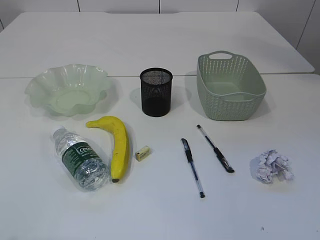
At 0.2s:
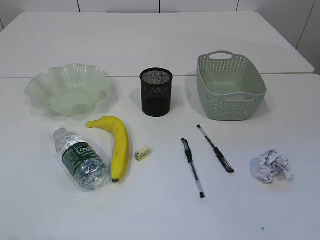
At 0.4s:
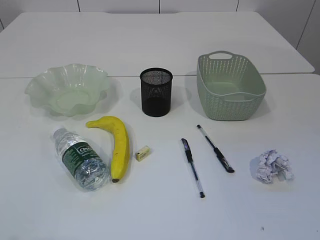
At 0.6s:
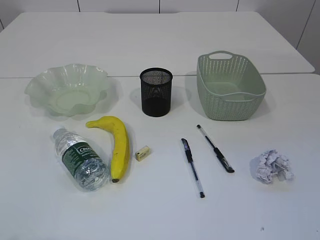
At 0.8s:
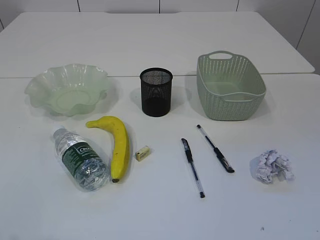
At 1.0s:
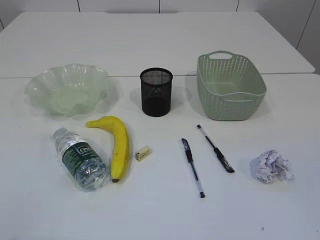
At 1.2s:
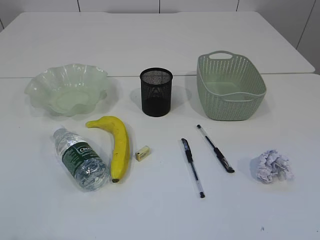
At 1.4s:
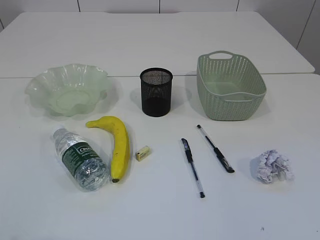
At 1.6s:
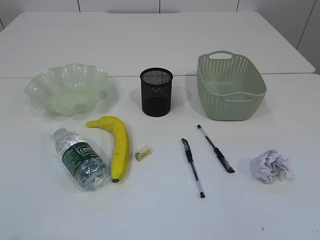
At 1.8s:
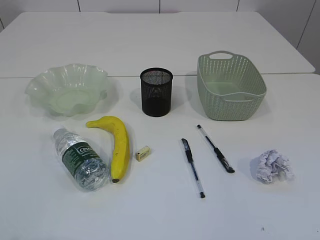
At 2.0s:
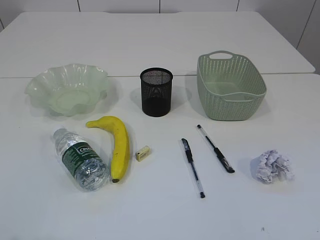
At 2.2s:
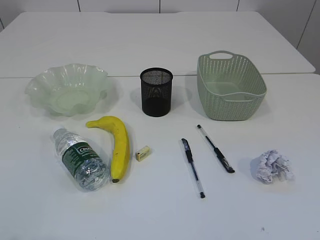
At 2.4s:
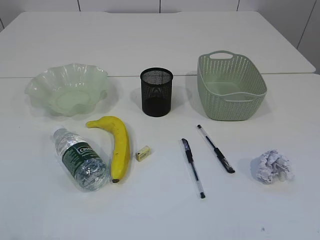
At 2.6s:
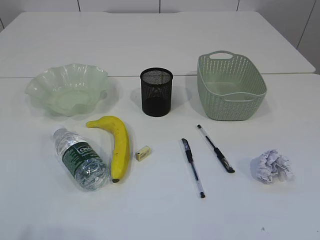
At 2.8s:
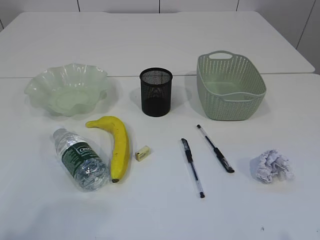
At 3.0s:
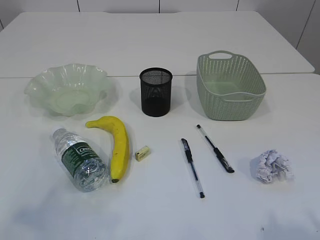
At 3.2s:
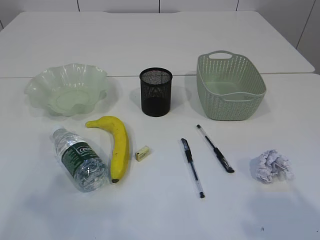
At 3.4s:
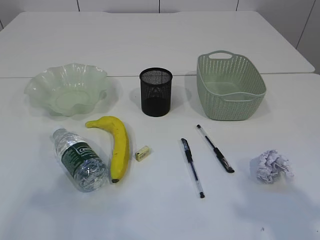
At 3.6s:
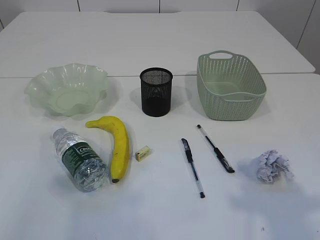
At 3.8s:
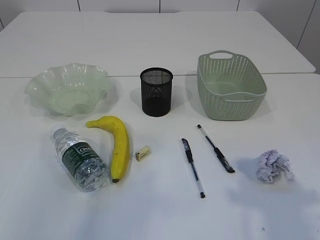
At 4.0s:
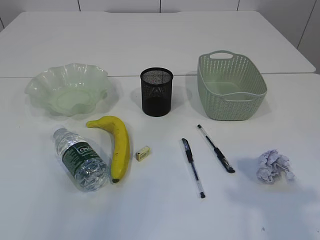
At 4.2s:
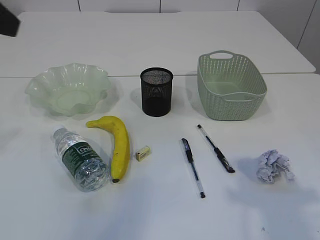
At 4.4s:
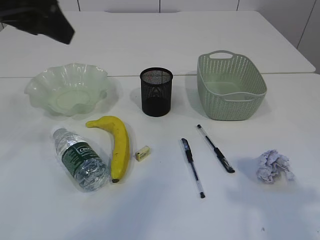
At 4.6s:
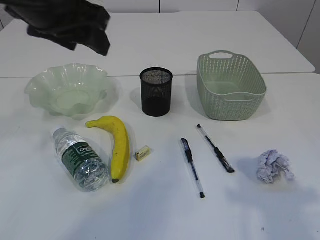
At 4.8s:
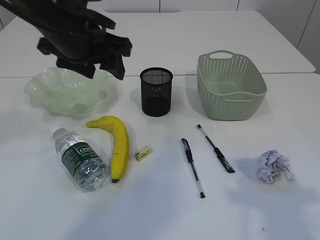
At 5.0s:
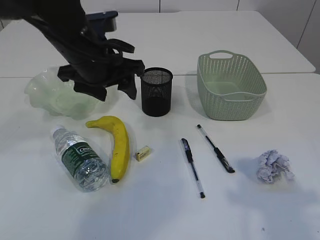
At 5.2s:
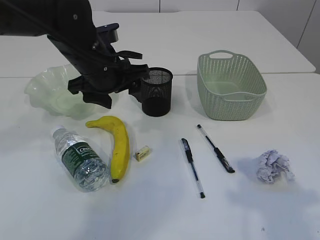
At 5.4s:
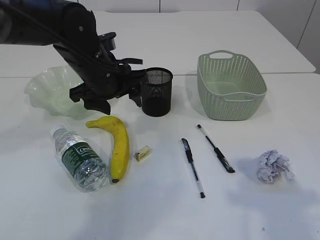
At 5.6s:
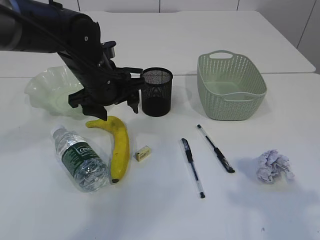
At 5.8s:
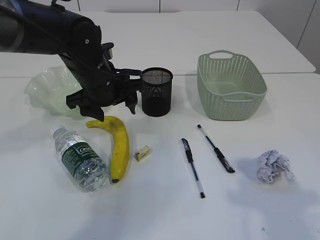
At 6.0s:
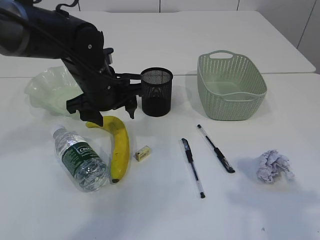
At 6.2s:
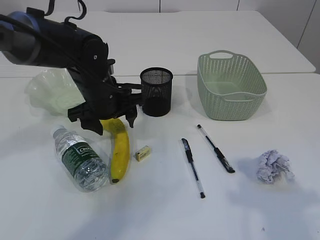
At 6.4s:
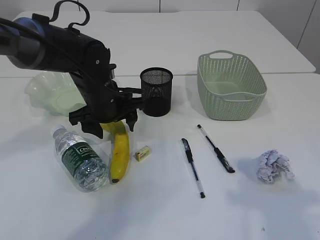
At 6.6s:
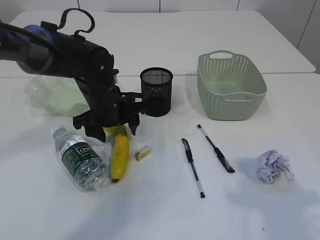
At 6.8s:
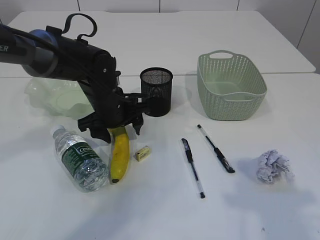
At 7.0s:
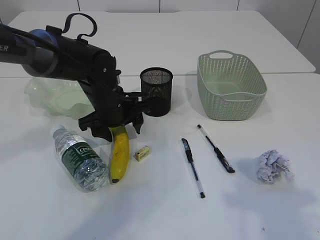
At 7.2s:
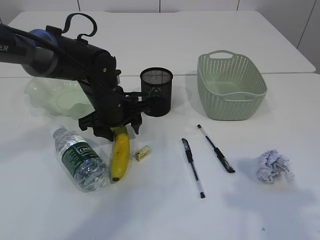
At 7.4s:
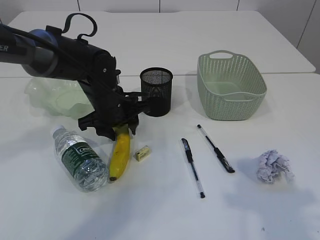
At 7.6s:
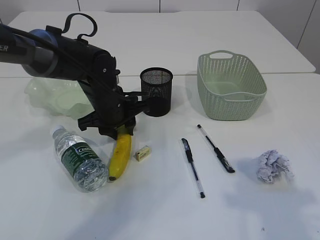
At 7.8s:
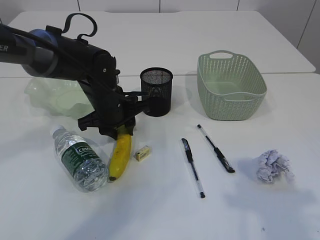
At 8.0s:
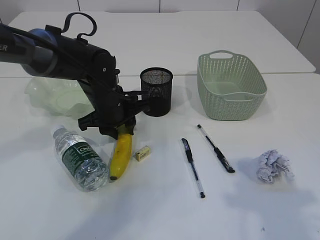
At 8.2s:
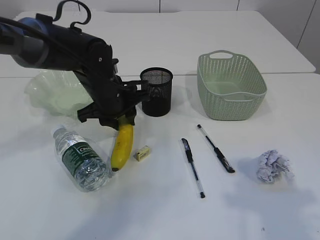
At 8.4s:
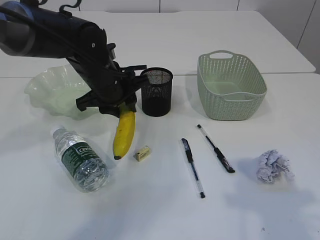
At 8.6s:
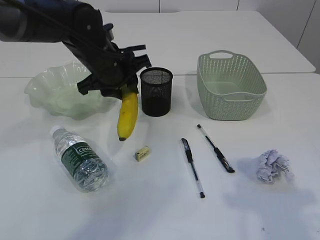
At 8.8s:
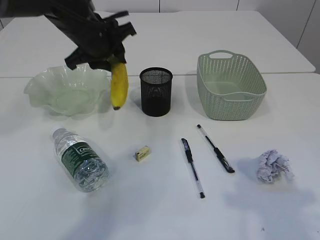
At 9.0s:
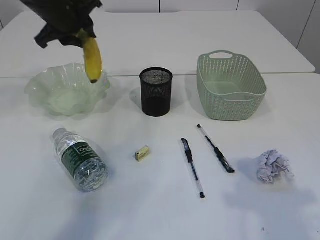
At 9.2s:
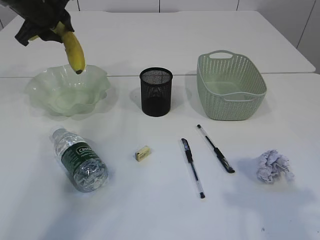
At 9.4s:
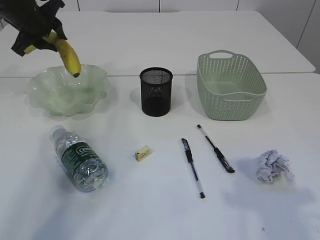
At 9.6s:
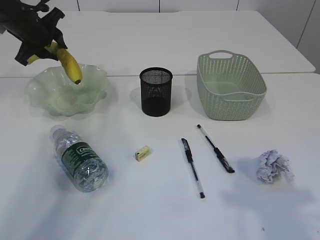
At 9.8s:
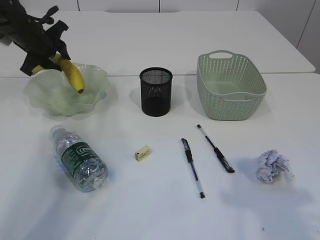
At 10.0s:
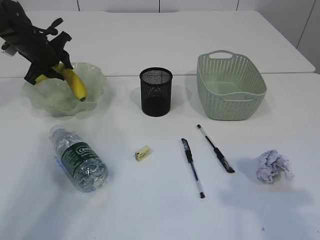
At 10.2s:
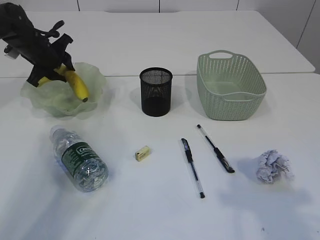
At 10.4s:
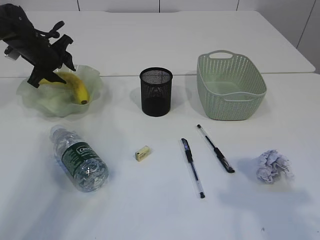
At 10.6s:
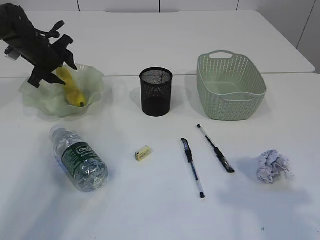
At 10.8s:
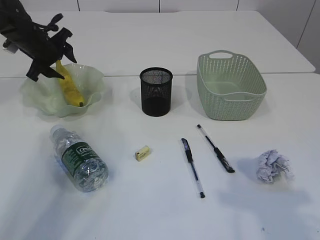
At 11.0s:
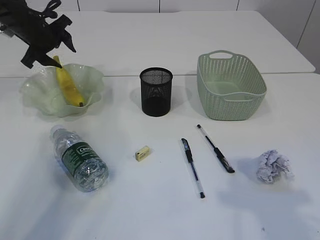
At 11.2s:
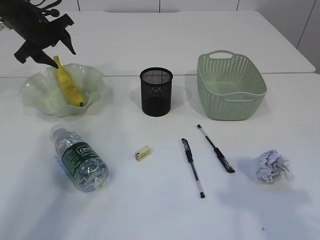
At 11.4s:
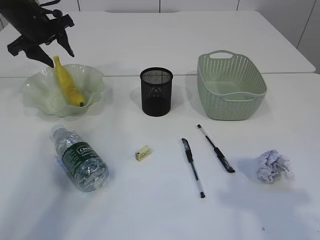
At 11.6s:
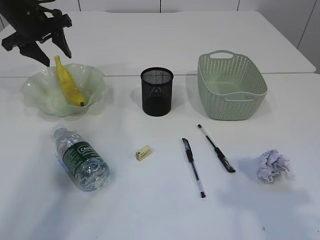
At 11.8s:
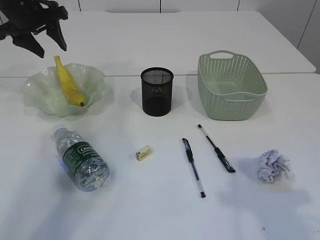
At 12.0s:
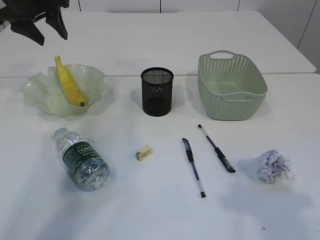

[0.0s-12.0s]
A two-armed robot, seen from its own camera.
Step, 8.6s to 11.8s: Place the banana in the plate.
1.6s to 3.0s: The left gripper travels forward by roughly 10 cm.
3.0s to 4.4s: The left gripper is displaced forward and to the right by some 25 cm. Meanwhile the right gripper goes about 10 cm forward.
4.4s to 6.0s: The left gripper moves downward and forward, roughly 25 cm.
6.0s to 7.6s: The left gripper moves downward, about 5 cm, and closes up.
7.6s to 9.0s: The left gripper heads upward, to the left and forward, covering some 20 cm.
9.0s to 10.4s: The left gripper travels downward, to the left and forward by about 15 cm.
10.4s to 12.0s: The left gripper is displaced upward by roughly 15 cm.

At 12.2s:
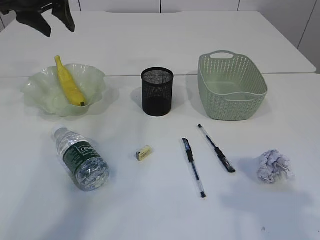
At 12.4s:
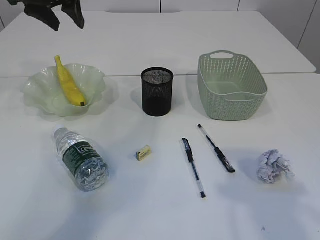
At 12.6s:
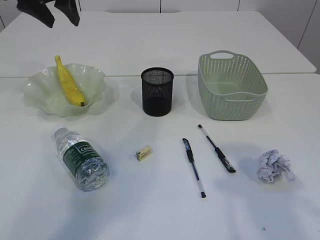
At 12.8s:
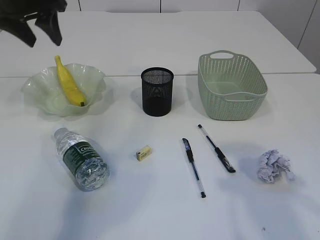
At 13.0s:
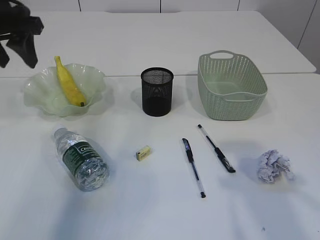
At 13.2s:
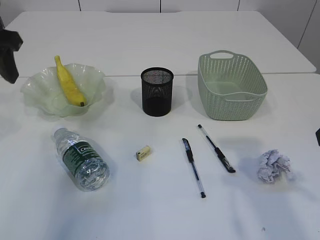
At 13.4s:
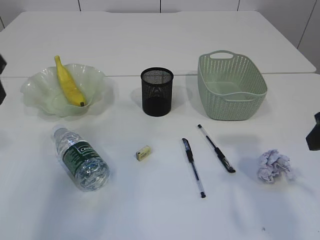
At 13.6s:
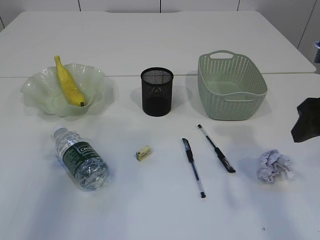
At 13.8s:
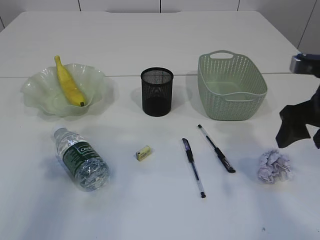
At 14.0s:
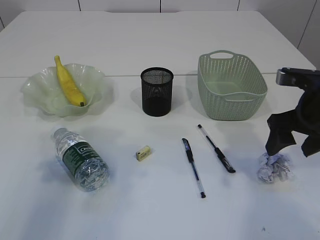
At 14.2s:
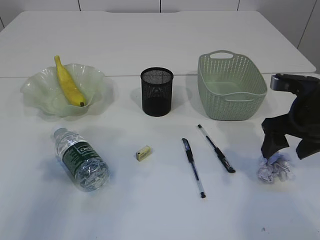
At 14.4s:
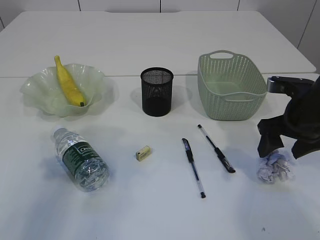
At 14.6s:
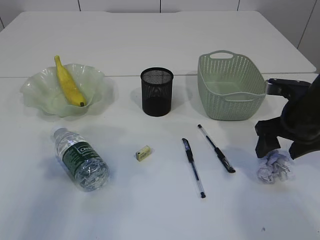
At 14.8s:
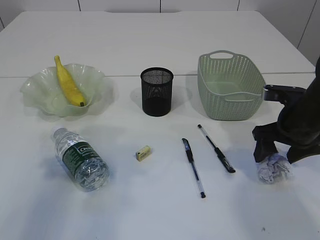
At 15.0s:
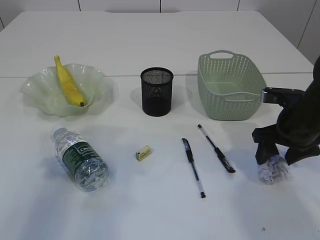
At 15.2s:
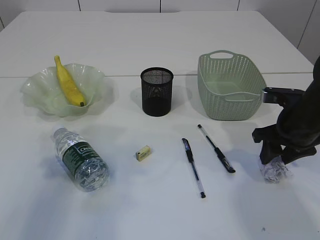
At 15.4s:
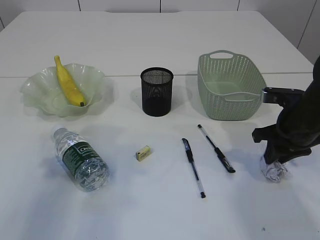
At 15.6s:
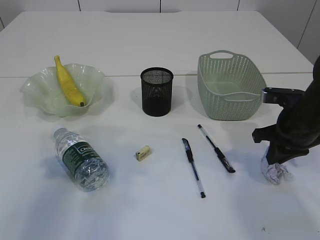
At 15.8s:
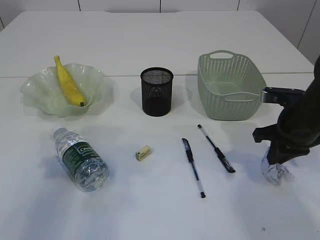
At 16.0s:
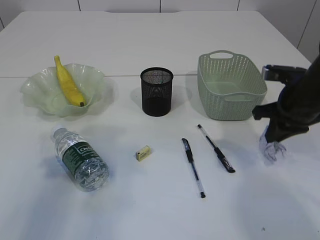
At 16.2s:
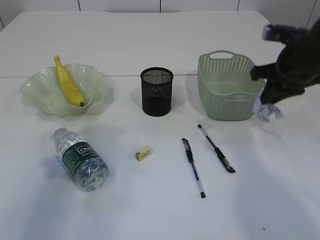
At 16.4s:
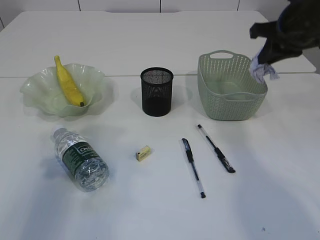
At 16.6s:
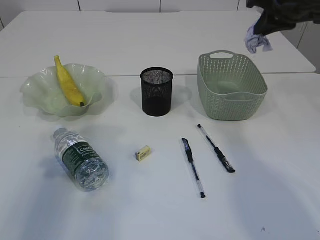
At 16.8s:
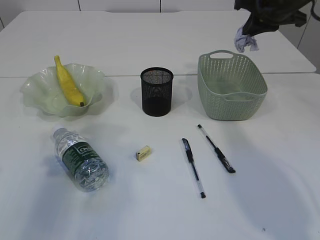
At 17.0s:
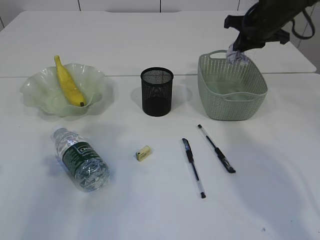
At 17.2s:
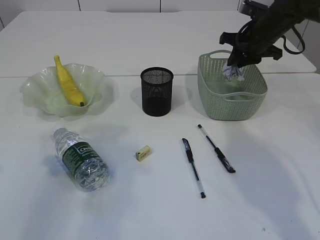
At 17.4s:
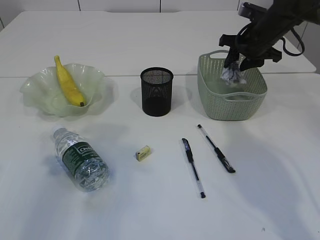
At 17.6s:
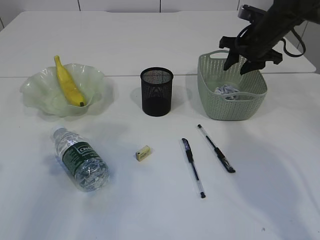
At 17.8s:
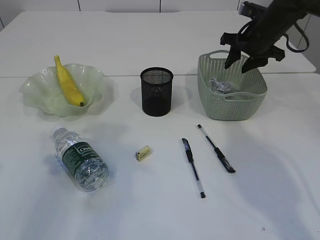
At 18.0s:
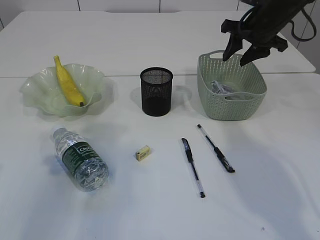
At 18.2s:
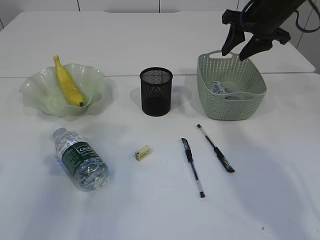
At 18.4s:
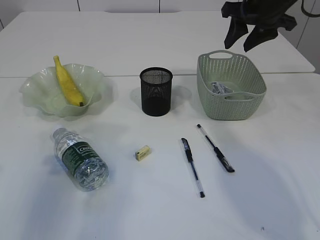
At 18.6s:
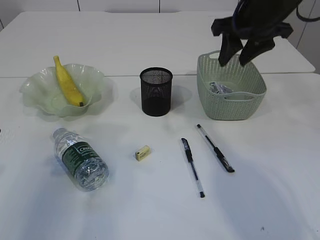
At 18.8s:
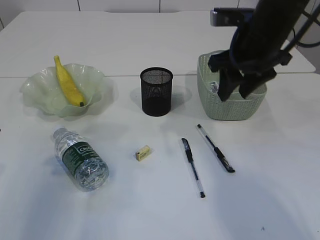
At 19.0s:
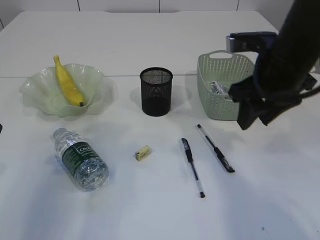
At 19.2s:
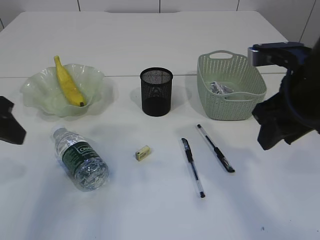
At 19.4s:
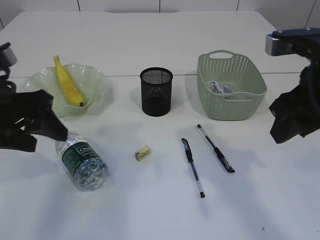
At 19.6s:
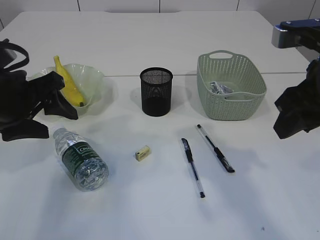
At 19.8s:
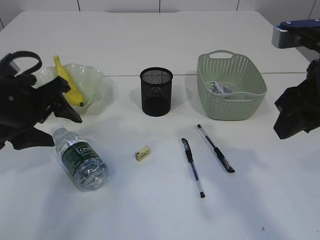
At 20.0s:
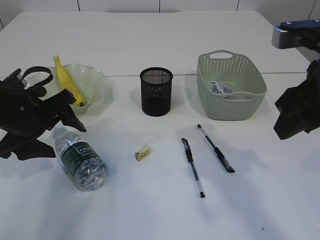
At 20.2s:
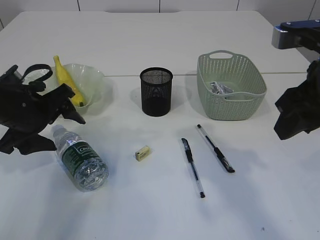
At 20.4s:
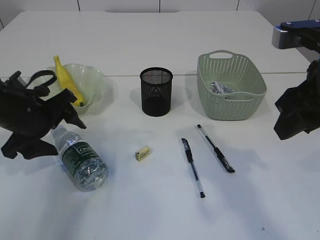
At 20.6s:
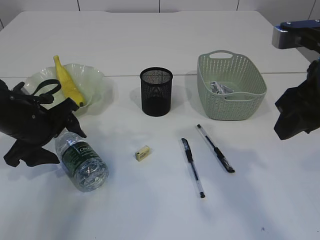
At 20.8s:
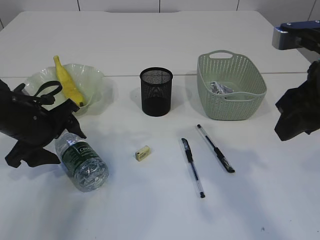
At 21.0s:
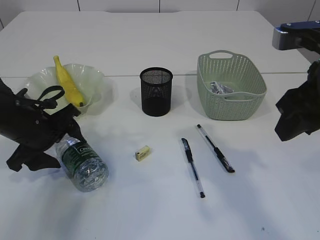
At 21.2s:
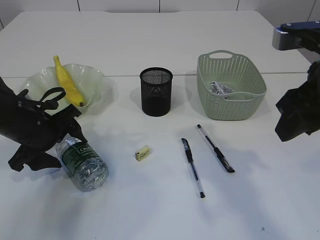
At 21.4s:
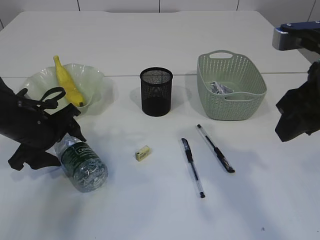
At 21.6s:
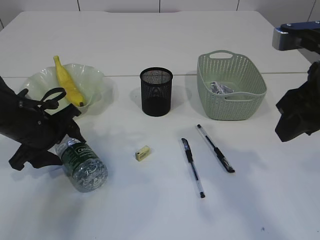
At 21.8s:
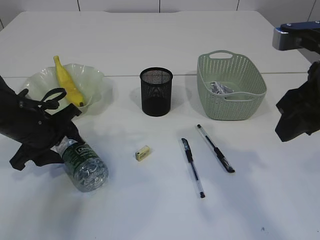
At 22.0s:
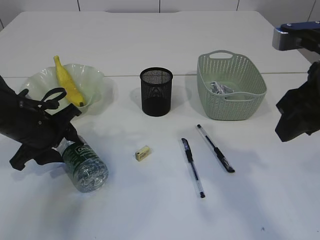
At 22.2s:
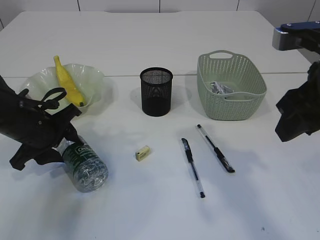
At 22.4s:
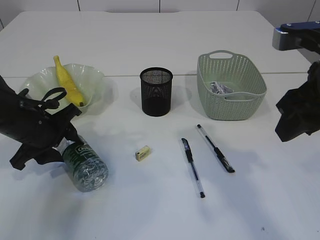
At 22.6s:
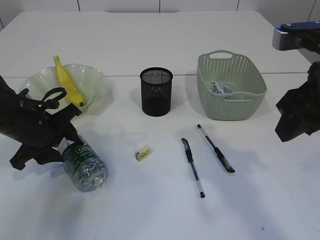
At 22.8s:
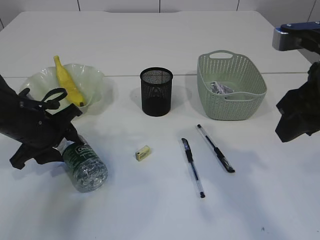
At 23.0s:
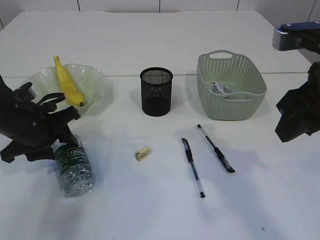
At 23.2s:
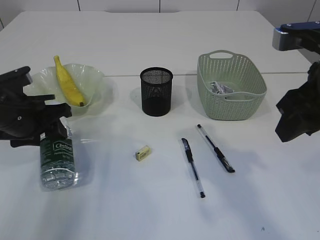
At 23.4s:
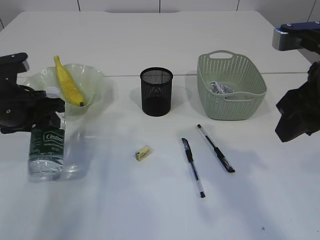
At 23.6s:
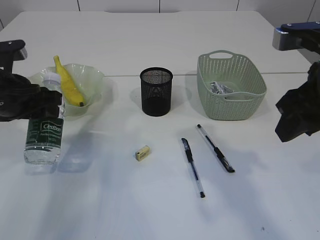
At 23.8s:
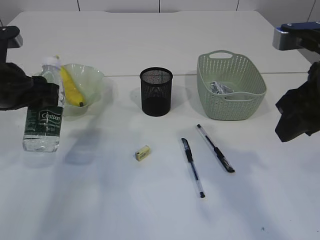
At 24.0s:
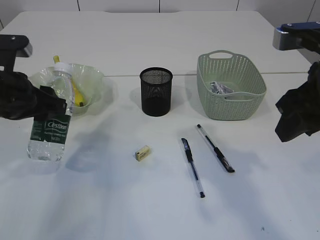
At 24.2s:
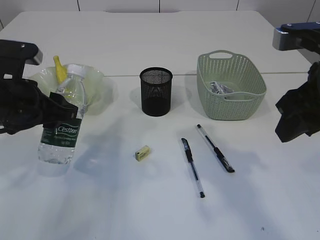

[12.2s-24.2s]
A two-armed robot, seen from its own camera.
Step, 12.2s to 16.0s: Pick up the waste paper.
Step, 16.2s to 18.4s: Place the waste paper in the basket.
Step, 18.6s to 23.6s: Pick up the bottle with the left arm.
12.2s to 13.8s: The right gripper is displaced forward and downward by about 15 cm. Meanwhile the left gripper moves backward, approximately 25 cm.
13.8s to 15.2s: The right gripper travels downward by about 10 cm, and closes up.
15.2s to 16.6s: The right gripper heads upward and forward, covering some 20 cm, and closes up.
16.6s to 18.2s: The right gripper opens.
18.2s to 19.8s: The right gripper heads backward, covering approximately 20 cm, while the left gripper goes some 10 cm to the right, downward and forward.
19.8s to 21.2s: The left gripper travels downward by some 10 cm.
21.2s to 22.6s: The left gripper closes up.
22.6s to 24.2s: The left gripper travels upward by roughly 10 cm.
